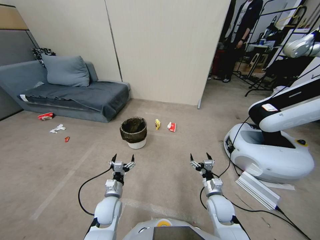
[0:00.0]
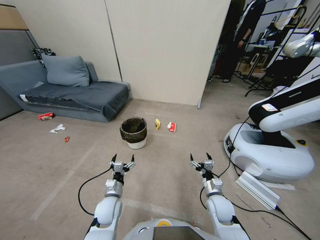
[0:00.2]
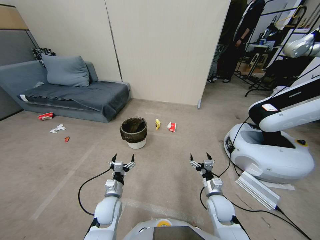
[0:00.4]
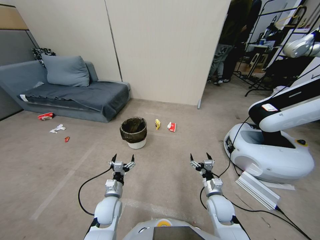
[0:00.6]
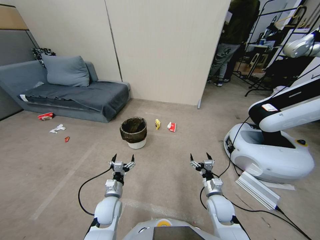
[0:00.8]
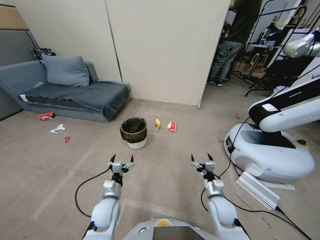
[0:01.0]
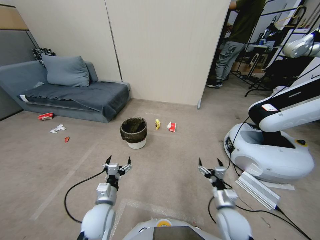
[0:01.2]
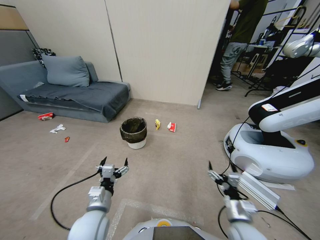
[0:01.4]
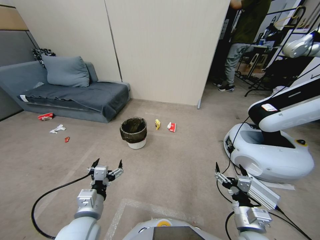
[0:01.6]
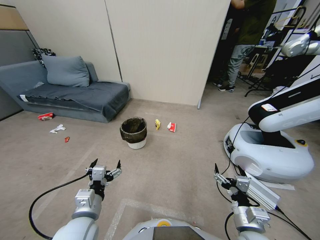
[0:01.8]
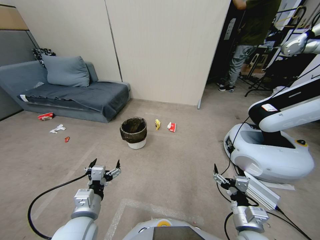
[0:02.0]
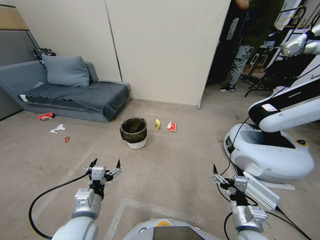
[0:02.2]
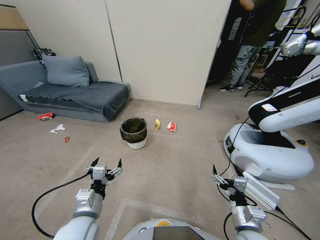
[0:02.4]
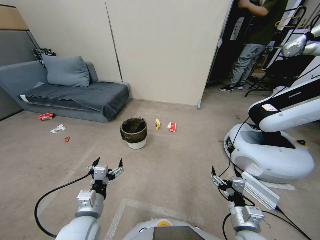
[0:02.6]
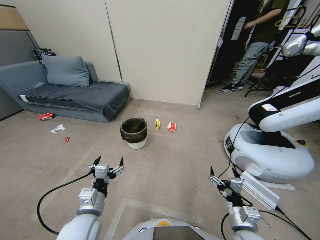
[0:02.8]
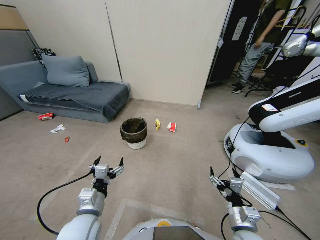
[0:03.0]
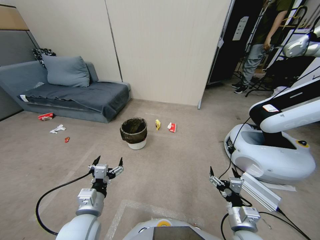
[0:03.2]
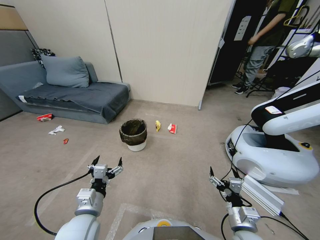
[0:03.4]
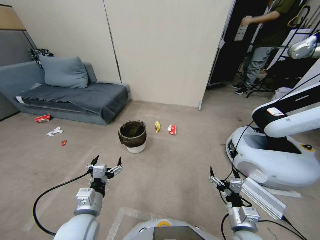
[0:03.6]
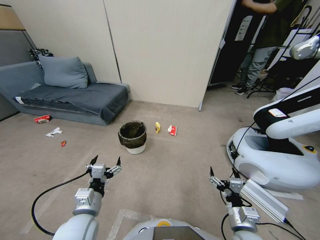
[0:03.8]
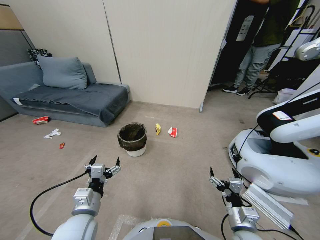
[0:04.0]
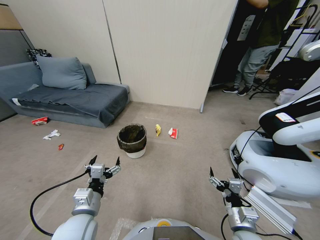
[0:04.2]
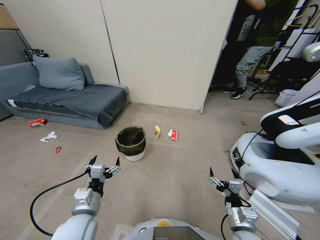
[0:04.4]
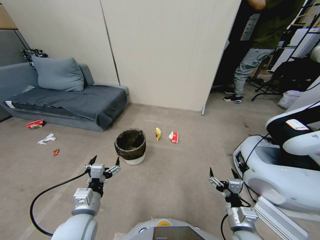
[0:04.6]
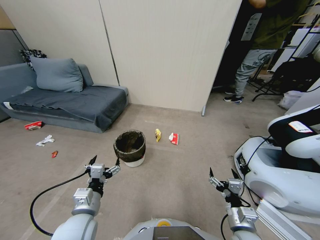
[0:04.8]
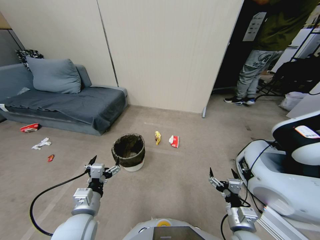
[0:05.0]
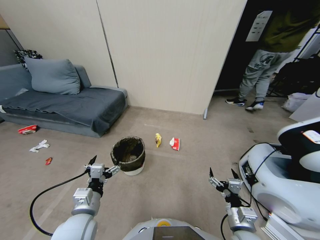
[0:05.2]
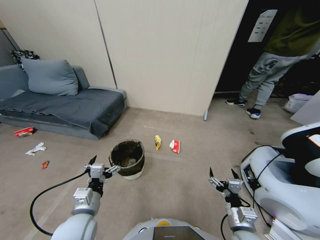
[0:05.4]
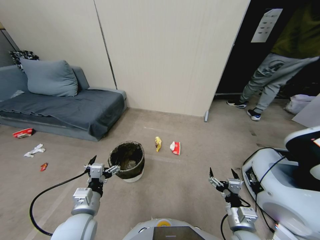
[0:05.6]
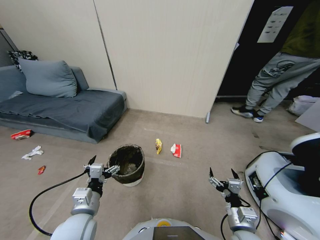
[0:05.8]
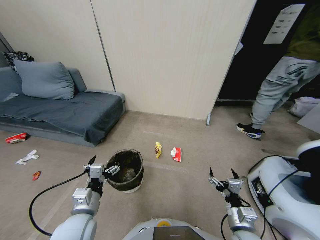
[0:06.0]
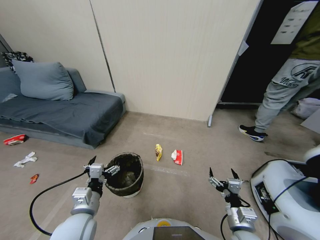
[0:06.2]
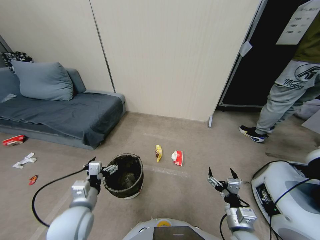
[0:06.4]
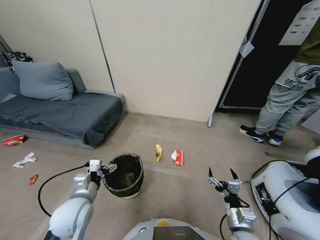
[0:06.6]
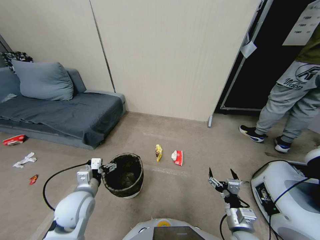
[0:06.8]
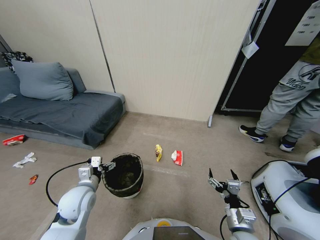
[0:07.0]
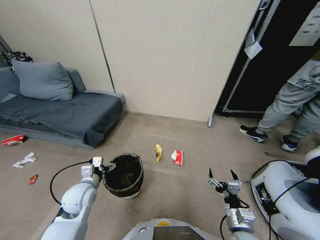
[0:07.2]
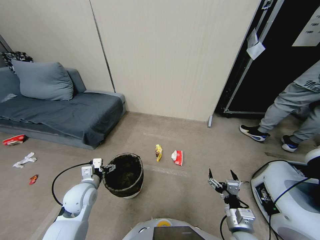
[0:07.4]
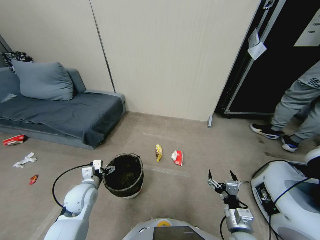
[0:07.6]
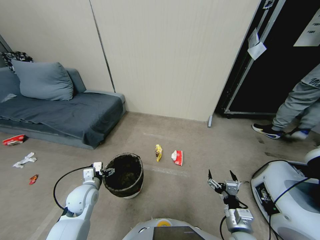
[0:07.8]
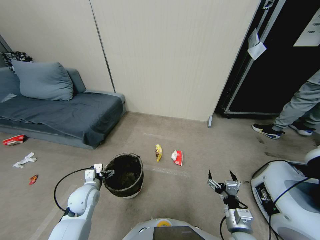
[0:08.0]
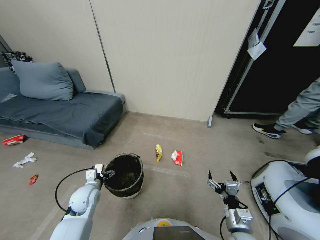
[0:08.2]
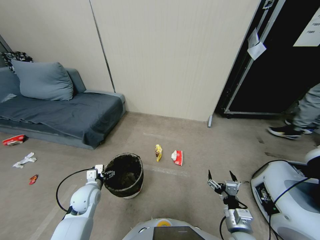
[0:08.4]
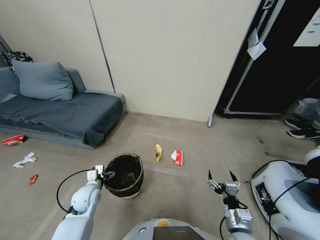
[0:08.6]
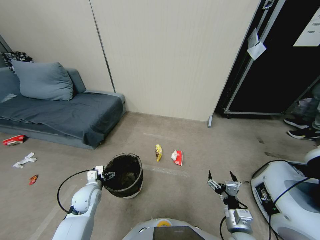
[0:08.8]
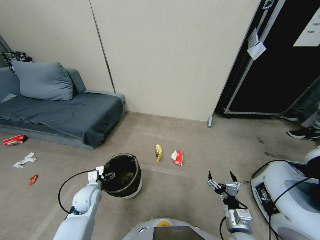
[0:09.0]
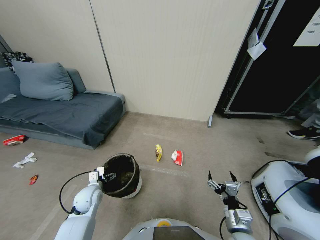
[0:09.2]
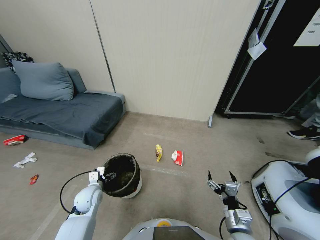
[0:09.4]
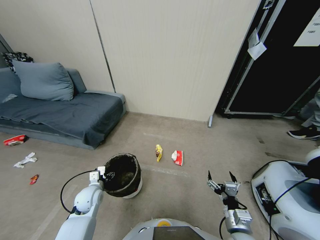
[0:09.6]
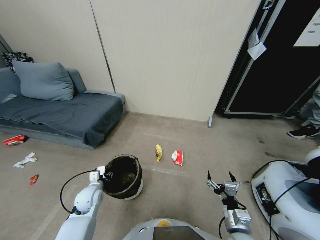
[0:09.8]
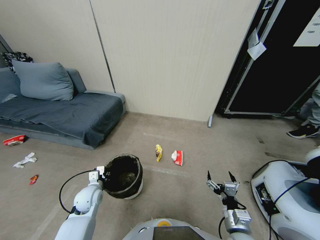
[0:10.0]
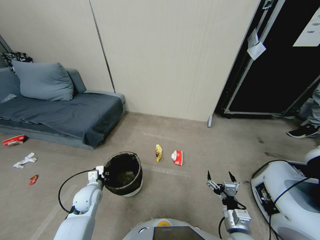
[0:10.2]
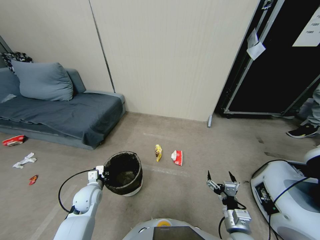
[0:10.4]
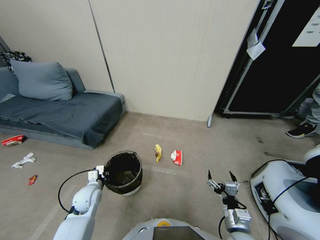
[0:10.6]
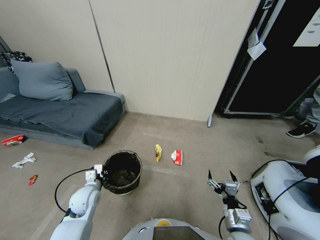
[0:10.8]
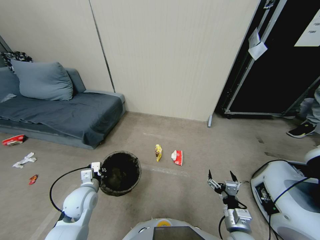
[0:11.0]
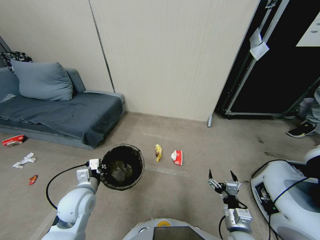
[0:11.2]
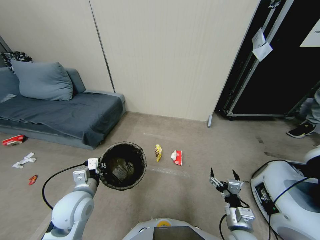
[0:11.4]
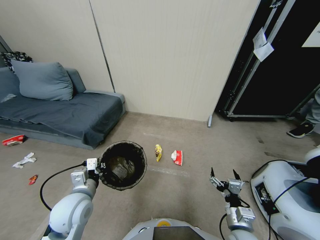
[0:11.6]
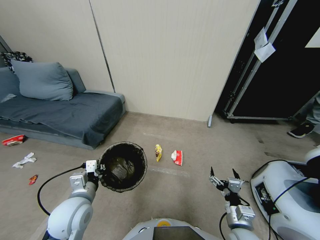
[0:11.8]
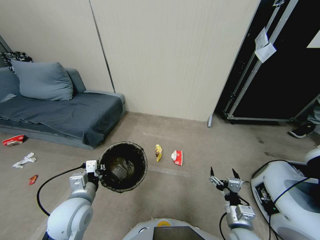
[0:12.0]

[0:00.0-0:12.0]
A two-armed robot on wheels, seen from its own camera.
Task of the whole recording: Pick up the trash bin, then pick up the garbage from the floor and place it into the trash bin.
0:01.6 to 0:03.0: The grippers make only small movements.
0:06.0 to 0:07.6: The left gripper heads forward, to the left and downward, covering roughly 15 cm.
0:07.6 to 0:09.0: The left gripper goes roughly 5 cm downward.
0:09.0 to 0:10.4: The left gripper closes.
0:10.4 to 0:12.0: The left gripper goes approximately 15 cm upward and backward.

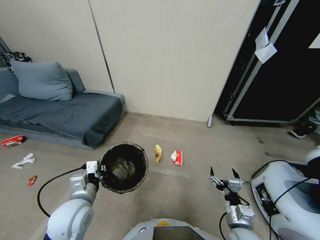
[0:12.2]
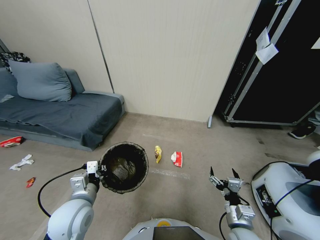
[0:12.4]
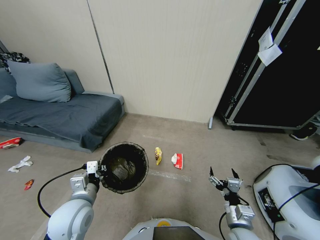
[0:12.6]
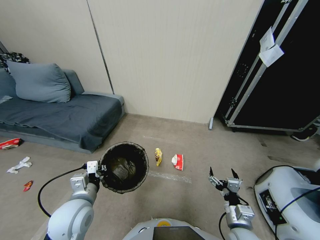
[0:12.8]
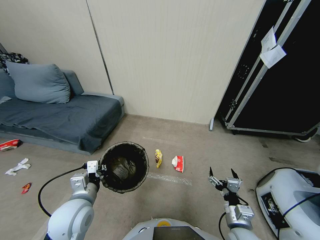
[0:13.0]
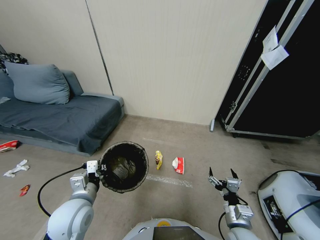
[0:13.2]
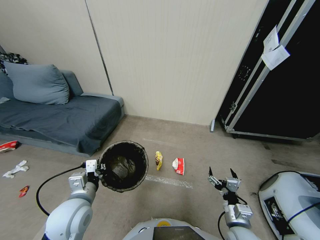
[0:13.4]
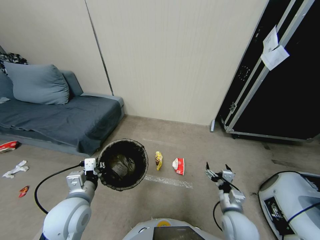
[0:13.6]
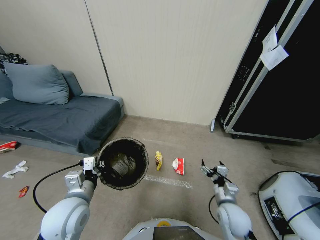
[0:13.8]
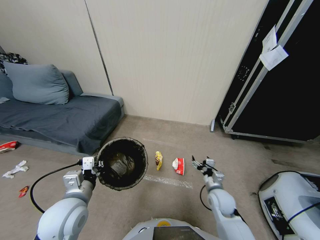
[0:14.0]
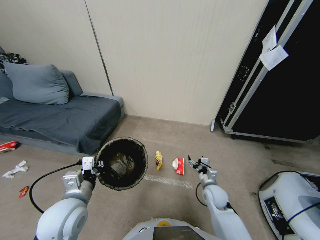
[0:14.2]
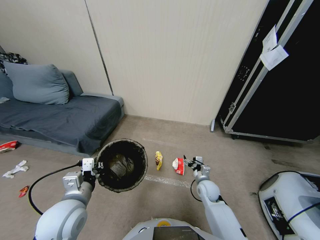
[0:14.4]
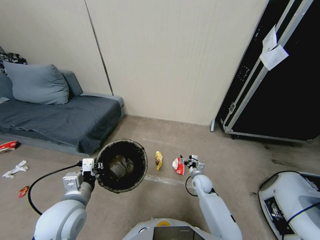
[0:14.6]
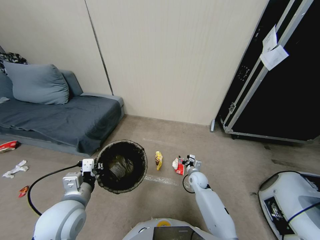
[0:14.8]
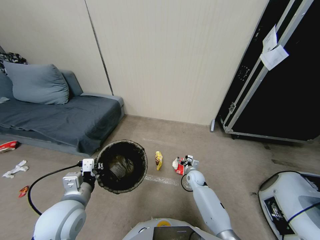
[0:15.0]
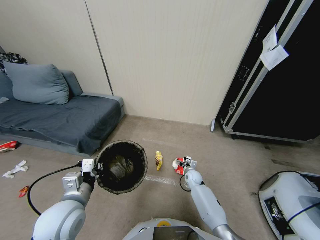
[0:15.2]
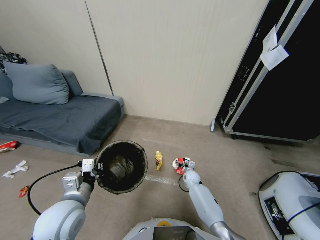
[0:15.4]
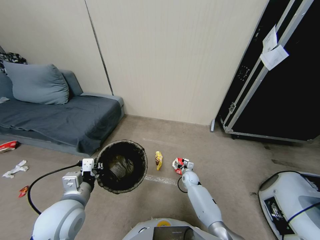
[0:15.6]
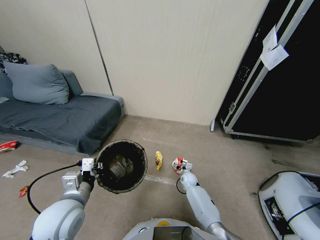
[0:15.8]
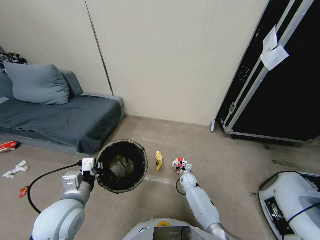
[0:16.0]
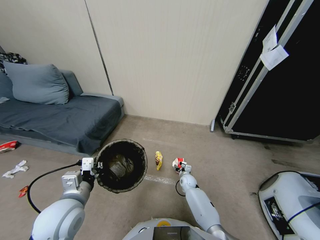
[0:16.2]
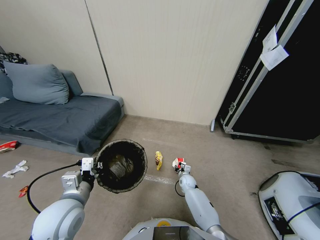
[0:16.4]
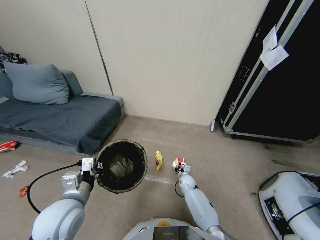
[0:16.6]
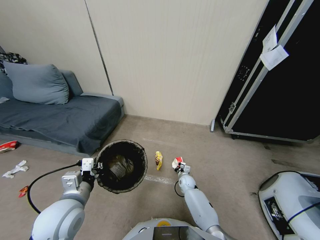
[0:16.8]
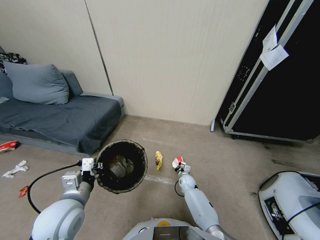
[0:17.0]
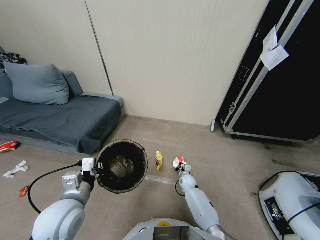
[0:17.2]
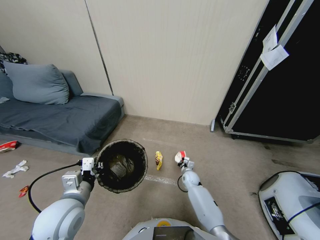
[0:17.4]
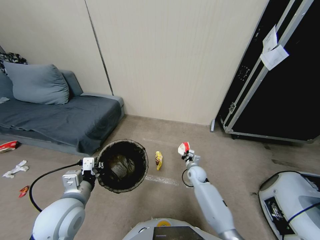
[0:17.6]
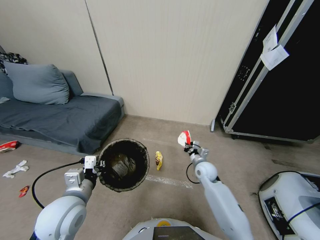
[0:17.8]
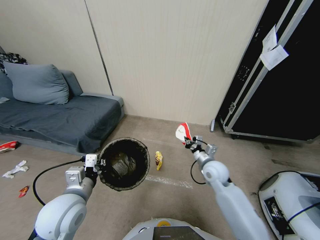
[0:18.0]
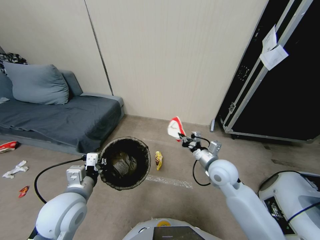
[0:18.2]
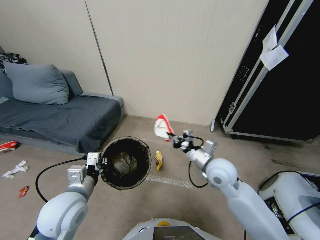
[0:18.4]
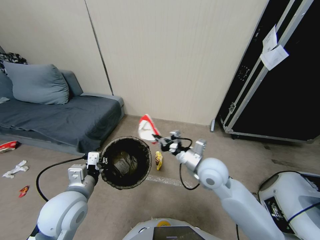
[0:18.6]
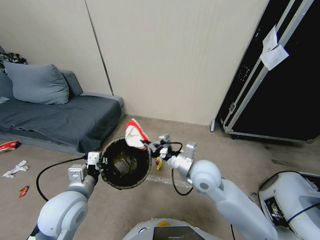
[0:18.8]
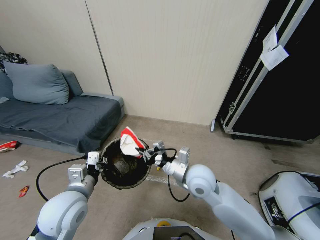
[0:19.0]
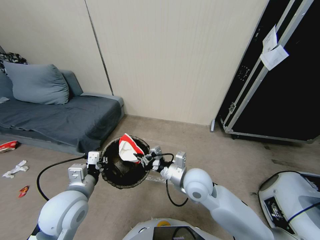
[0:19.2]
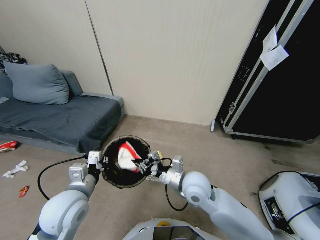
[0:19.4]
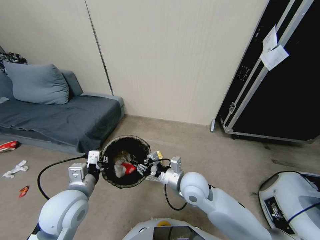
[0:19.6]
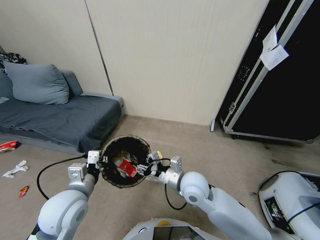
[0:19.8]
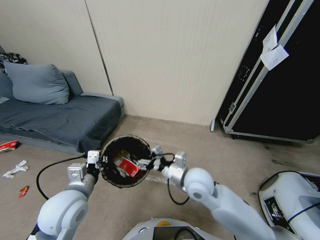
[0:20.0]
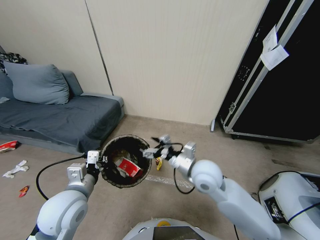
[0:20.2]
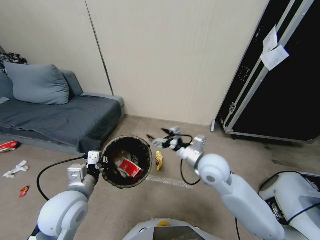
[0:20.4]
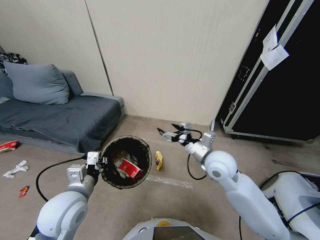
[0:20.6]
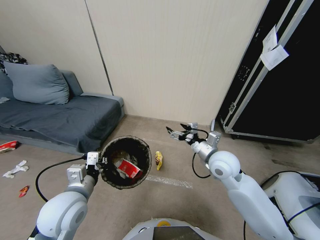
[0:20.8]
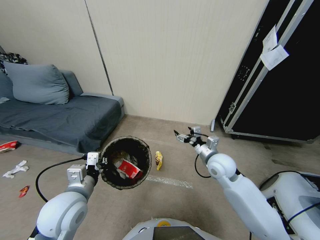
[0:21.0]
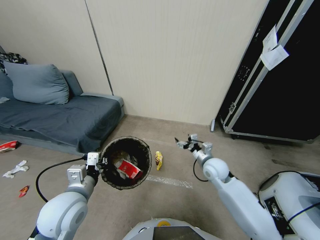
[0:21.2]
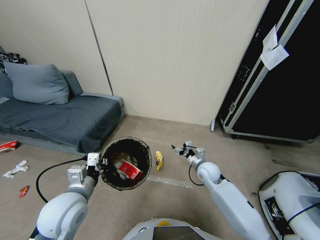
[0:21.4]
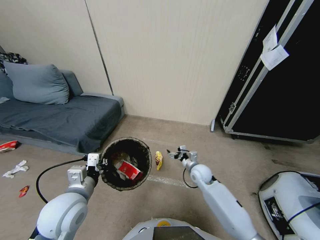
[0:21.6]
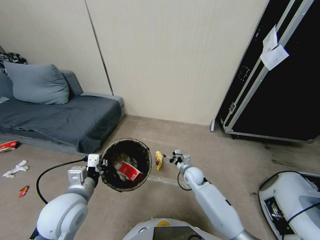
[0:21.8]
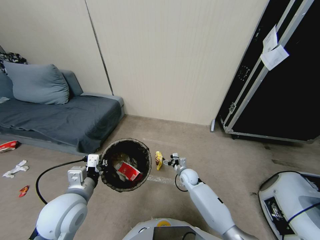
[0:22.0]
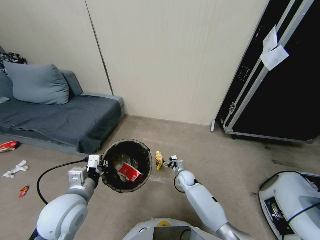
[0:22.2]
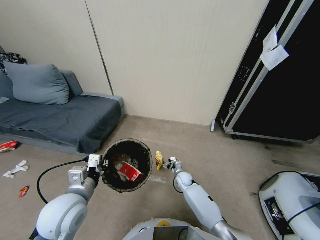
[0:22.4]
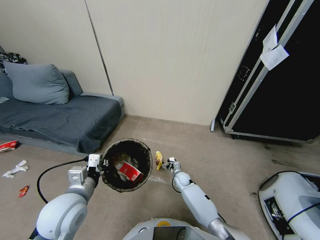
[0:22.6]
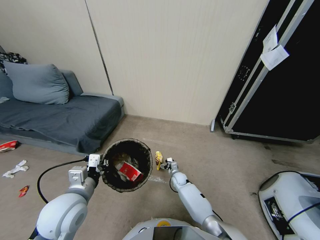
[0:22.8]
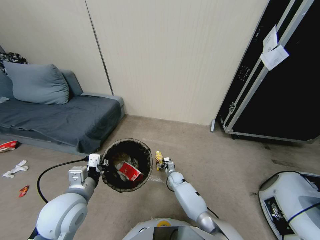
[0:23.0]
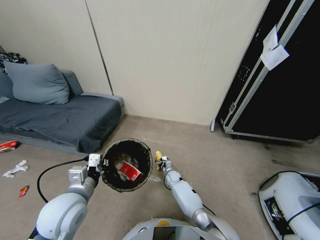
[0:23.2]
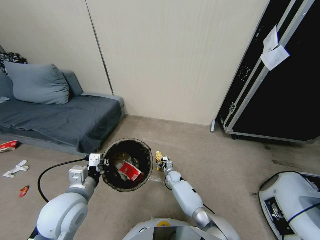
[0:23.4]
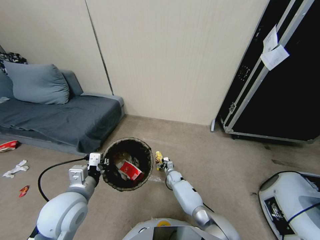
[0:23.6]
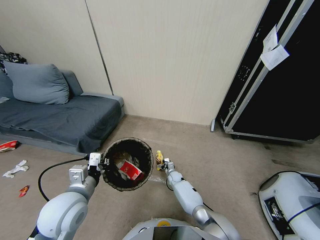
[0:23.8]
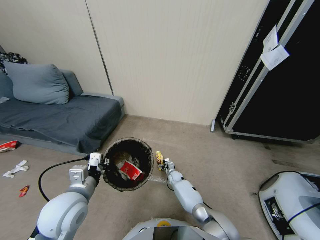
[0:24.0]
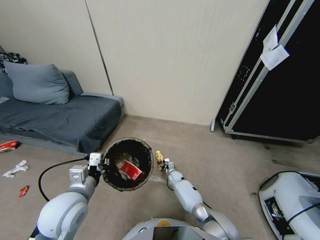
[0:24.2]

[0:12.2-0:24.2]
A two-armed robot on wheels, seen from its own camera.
Task of the whole recording: Pick up the trash bin, then pick up the garbage from the floor and place it into the trash bin.
0:12.2 to 0:13.8: The right gripper heads forward, covering some 10 cm.
0:13.8 to 0:15.2: The right gripper travels forward and downward by roughly 25 cm.
0:15.2 to 0:16.6: The right gripper closes its fingers.
0:16.6 to 0:18.2: The right gripper goes about 35 cm upward.
0:18.2 to 0:19.8: The right gripper goes approximately 10 cm to the left, and opens its fingers.
0:19.8 to 0:21.2: The right gripper goes about 20 cm to the right, downward and forward.
0:21.2 to 0:22.6: The right gripper shifts roughly 25 cm downward and to the left.
0:22.6 to 0:24.2: The right gripper moves about 5 cm, and closes its fingers.
